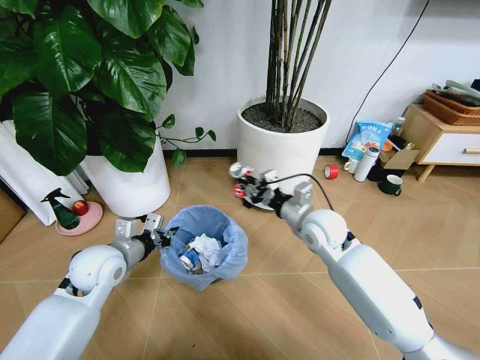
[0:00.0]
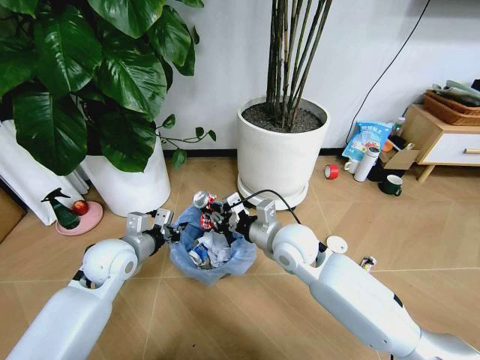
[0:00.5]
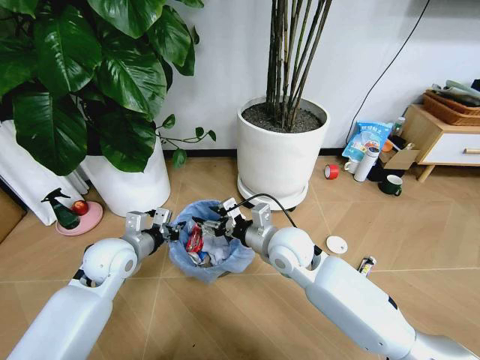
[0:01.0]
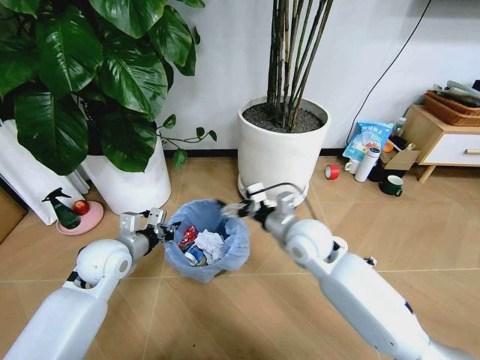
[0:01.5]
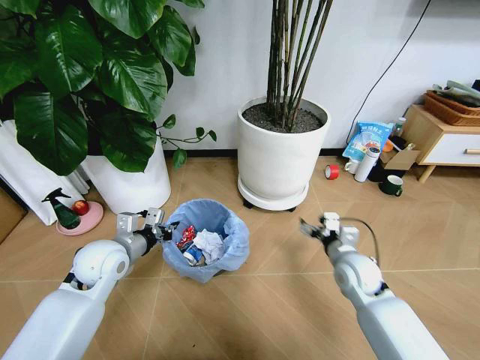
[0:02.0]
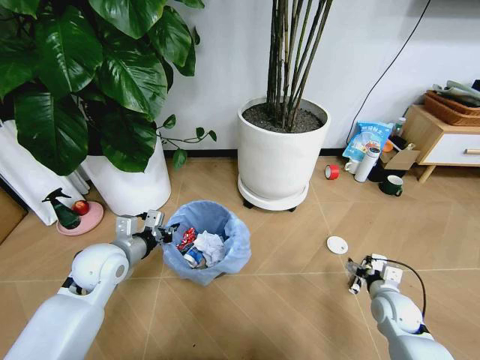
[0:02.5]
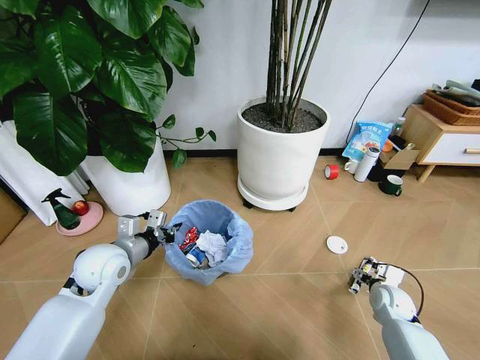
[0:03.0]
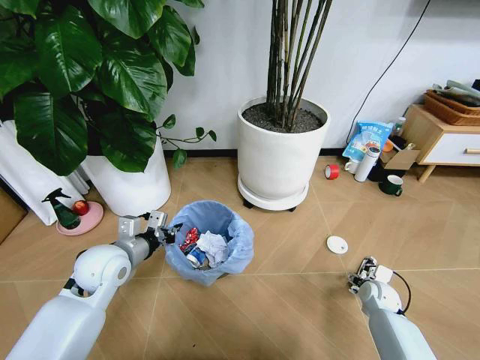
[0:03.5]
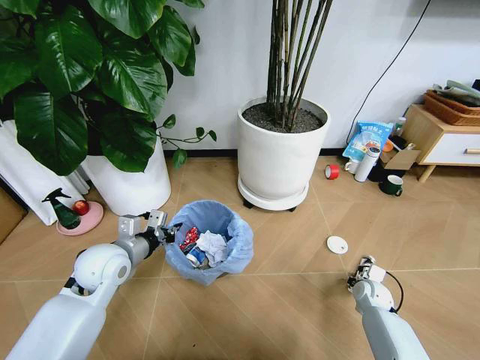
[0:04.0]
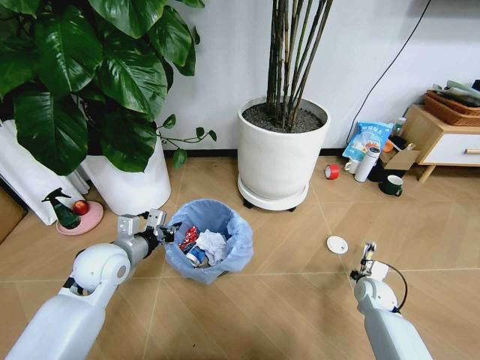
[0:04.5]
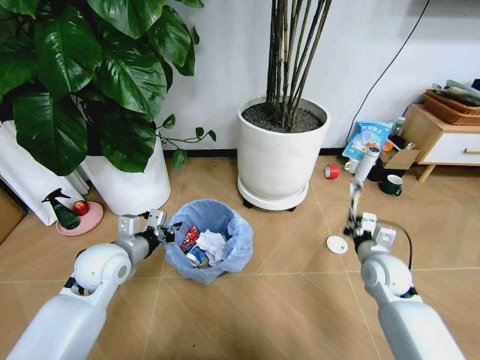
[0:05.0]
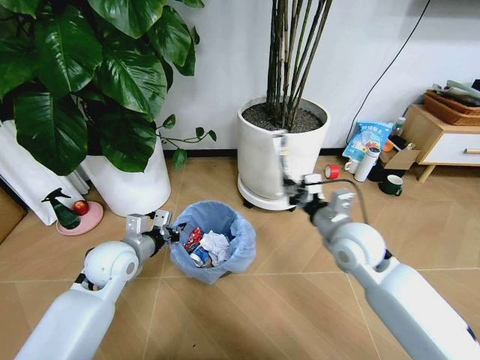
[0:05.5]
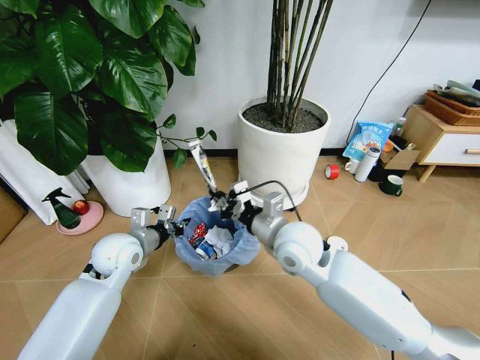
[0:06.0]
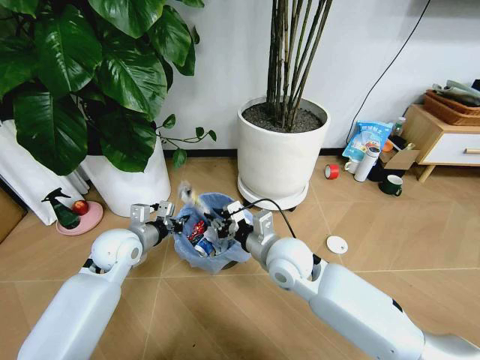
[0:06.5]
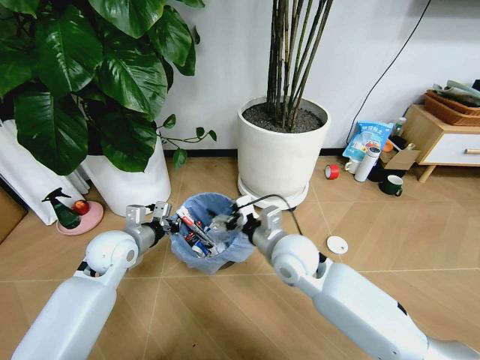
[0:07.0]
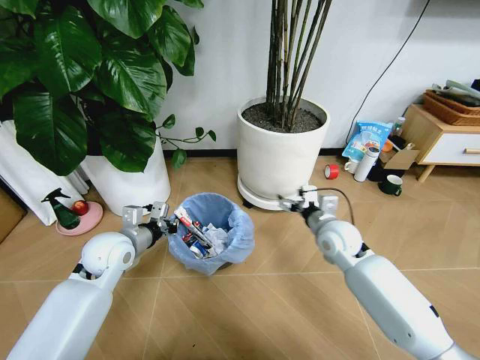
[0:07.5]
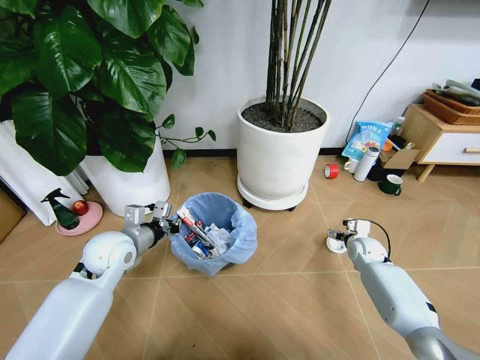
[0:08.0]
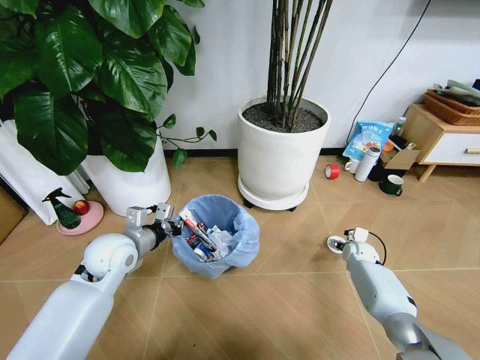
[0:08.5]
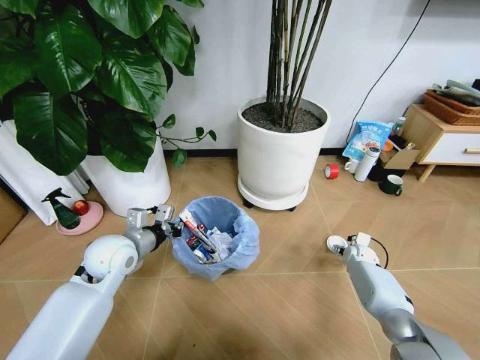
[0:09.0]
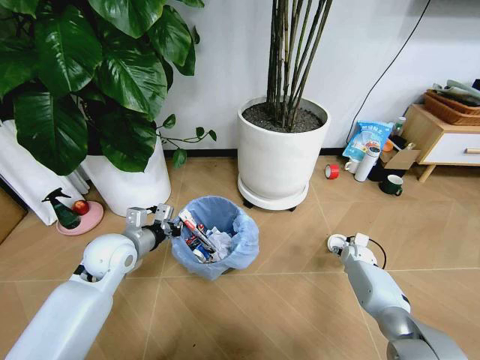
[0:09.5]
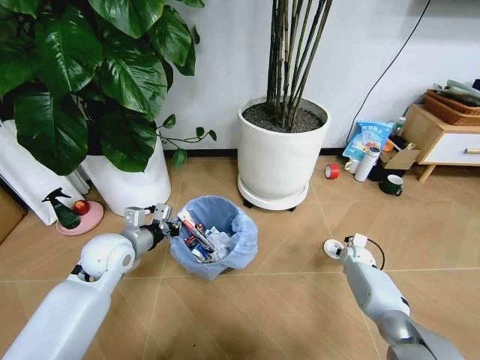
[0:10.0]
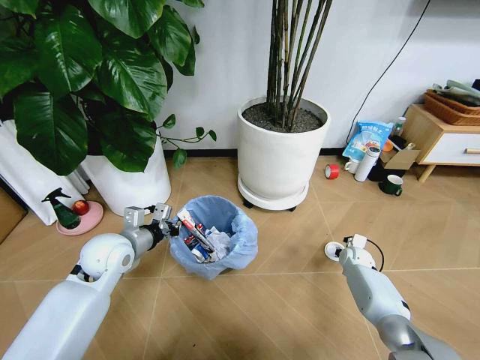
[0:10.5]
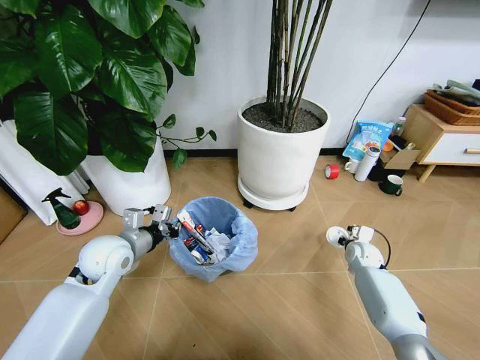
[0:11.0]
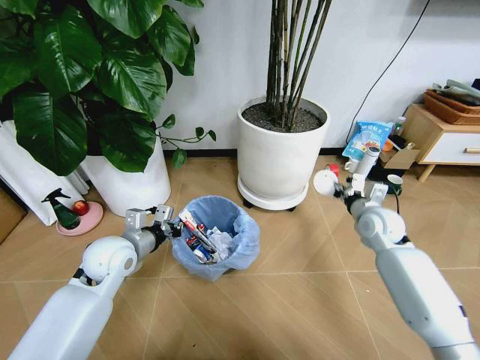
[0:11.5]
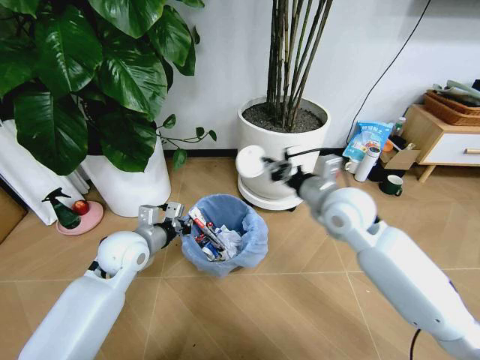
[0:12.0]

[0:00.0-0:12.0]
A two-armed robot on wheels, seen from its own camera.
Task of the whole recording: Pick up the trash bin and place the garbage on the floor into it.
0:00.0 to 0:02.0: The right gripper heads downward, to the right and backward, covering some 15 cm, and opens its fingers.
0:02.0 to 0:04.0: The right gripper travels downward and to the right by approximately 20 cm, and closes up.
0:04.0 to 0:06.0: The right gripper moves upward and to the left, about 40 cm.
0:06.0 to 0:08.0: The right gripper goes roughly 35 cm to the right and downward, and opens up.
0:08.0 to 0:10.0: The right gripper is displaced downward by approximately 5 cm, and closes up.
0:10.0 to 0:12.0: The right gripper goes about 40 cm upward and to the left, and closes its fingers.

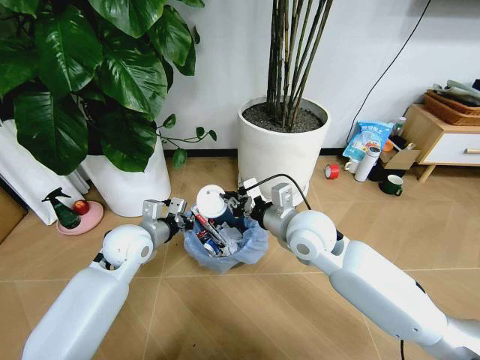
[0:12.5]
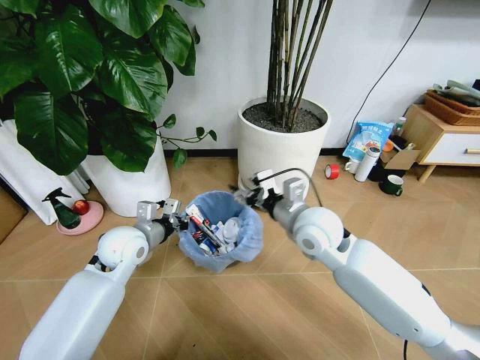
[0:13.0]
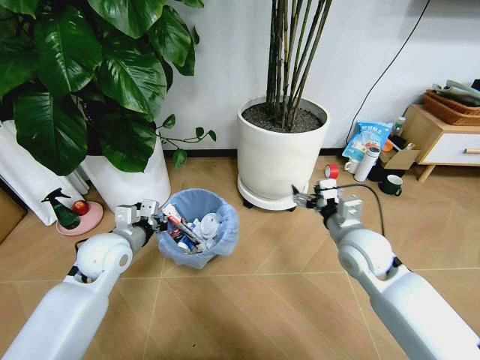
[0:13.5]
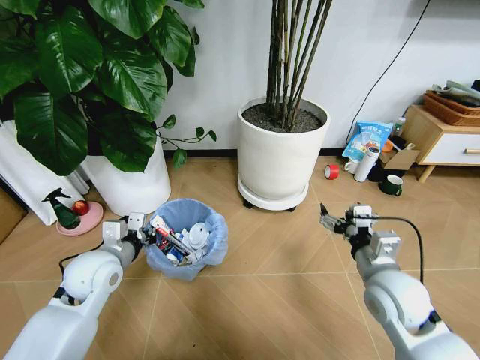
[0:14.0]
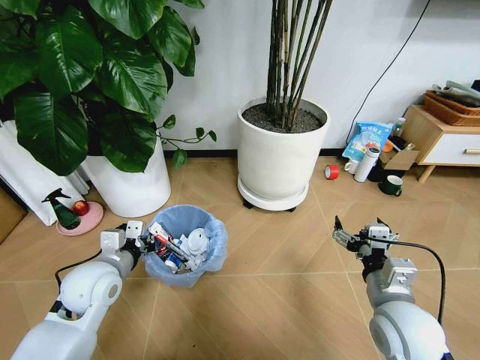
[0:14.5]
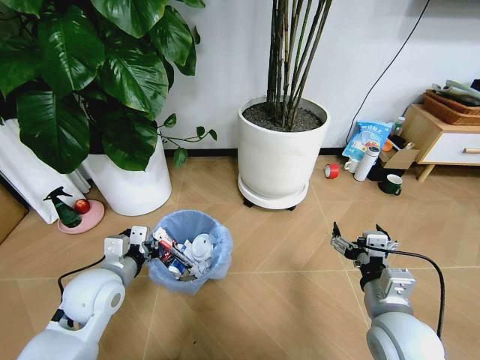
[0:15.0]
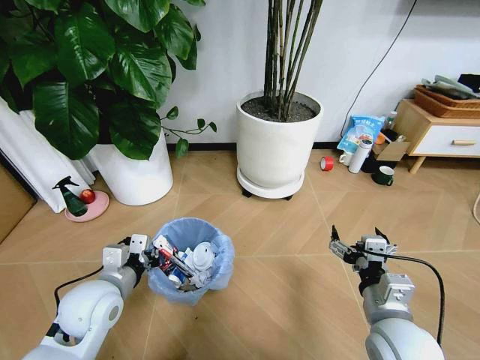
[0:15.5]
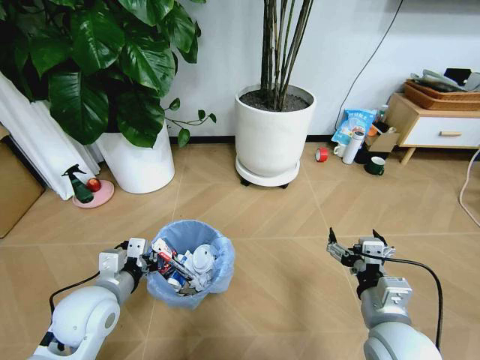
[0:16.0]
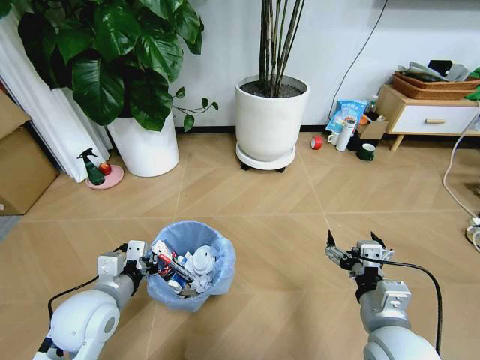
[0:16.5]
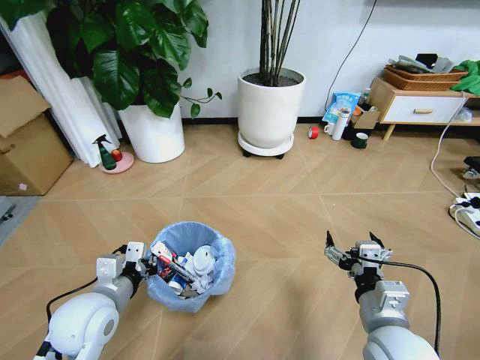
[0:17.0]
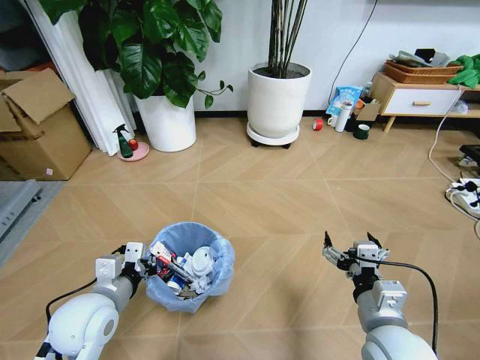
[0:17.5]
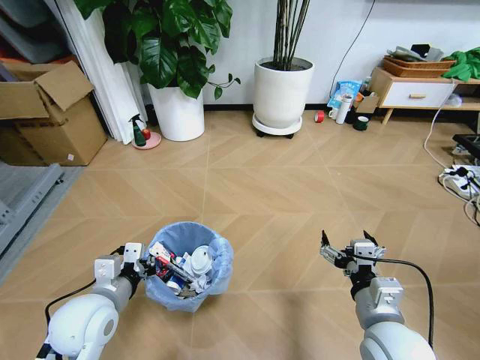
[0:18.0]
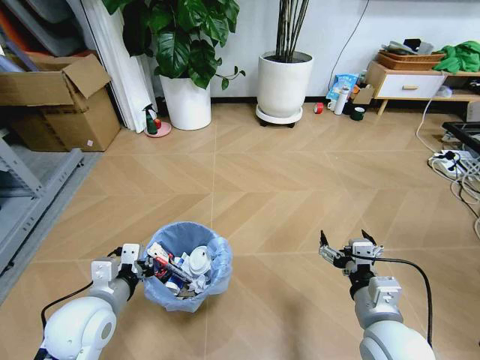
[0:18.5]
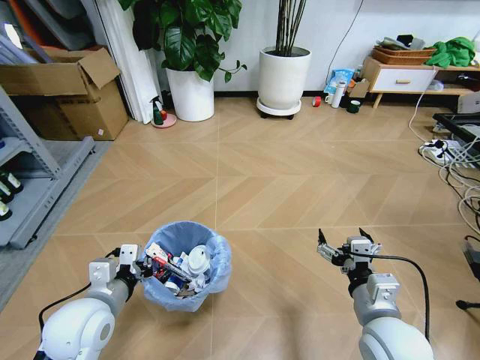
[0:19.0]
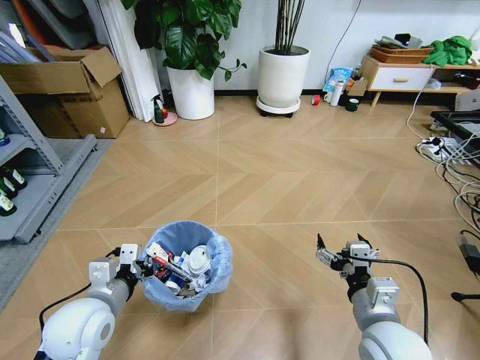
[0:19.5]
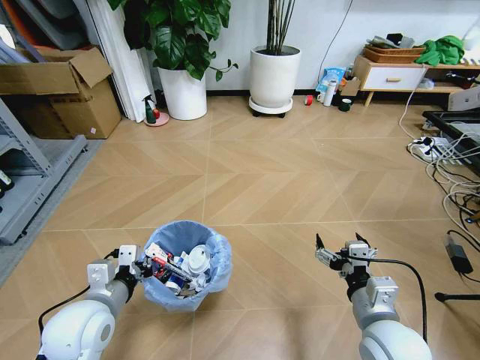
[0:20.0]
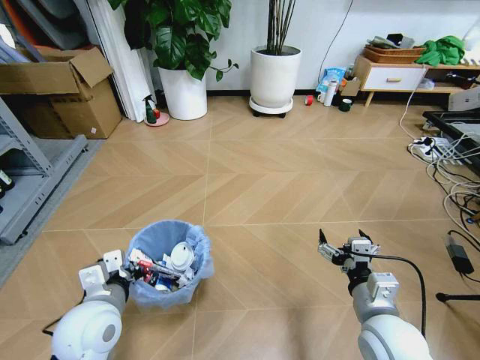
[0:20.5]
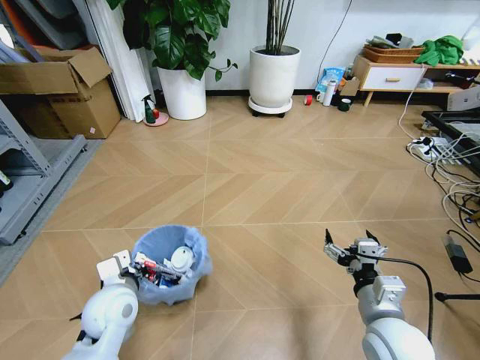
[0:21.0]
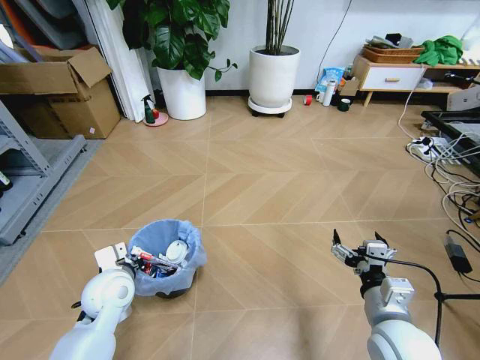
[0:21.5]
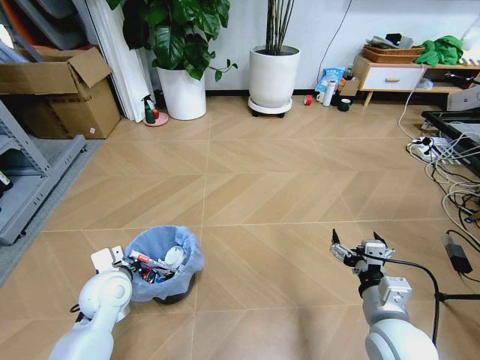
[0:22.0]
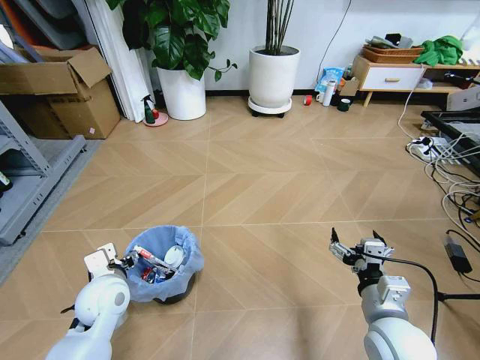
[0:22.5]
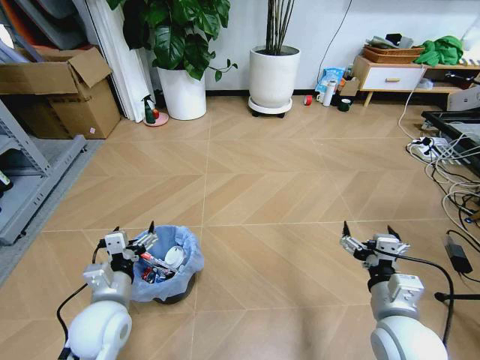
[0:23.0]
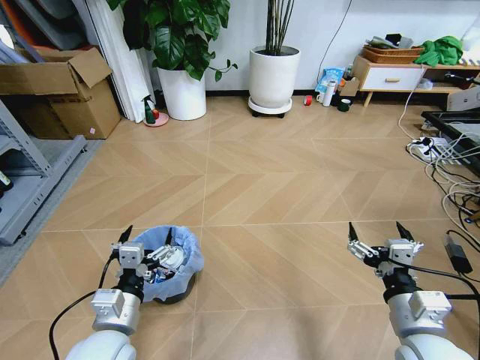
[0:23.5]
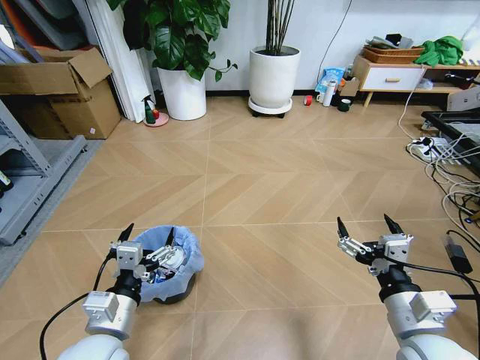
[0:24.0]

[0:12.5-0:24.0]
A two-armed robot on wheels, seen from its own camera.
Task of the whole recording: Pick up the trash bin and place the garbage on the floor into it.
0:12.5 to 0:14.5: The left gripper goes approximately 10 cm backward. Meanwhile the right gripper travels backward and to the right by roughly 20 cm, and opens its fingers.
0:14.5 to 0:16.5: The left gripper travels backward by roughly 5 cm.
0:20.0 to 0:22.0: The left gripper goes roughly 10 cm forward and downward.
0:22.0 to 0:24.0: The left gripper shifts some 15 cm backward, and opens. Meanwhile the right gripper is displaced upward by approximately 5 cm.
